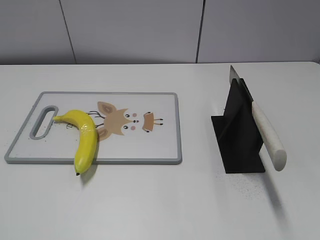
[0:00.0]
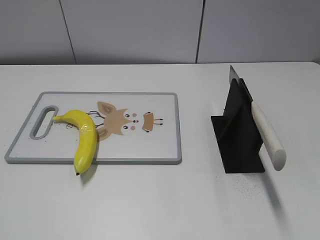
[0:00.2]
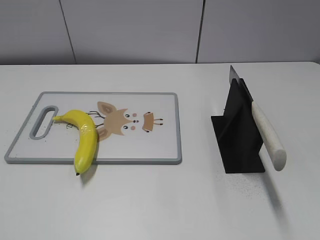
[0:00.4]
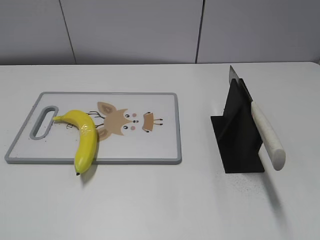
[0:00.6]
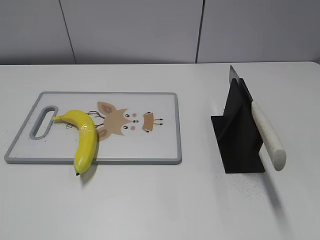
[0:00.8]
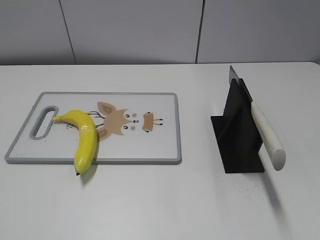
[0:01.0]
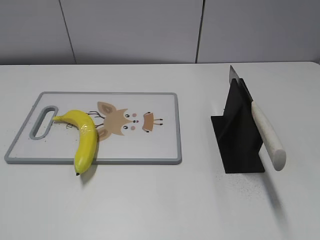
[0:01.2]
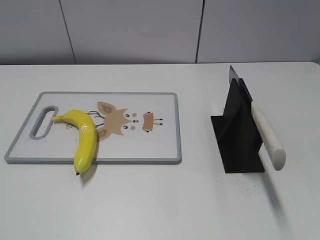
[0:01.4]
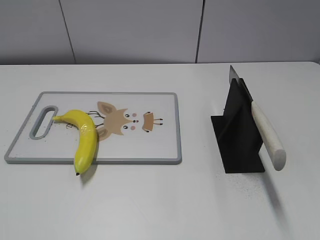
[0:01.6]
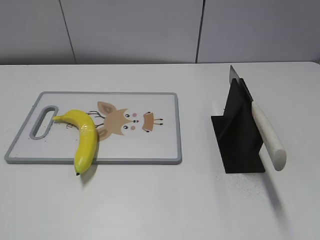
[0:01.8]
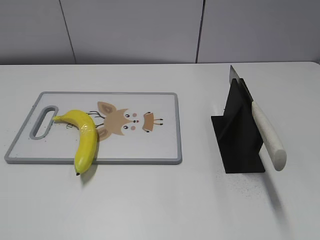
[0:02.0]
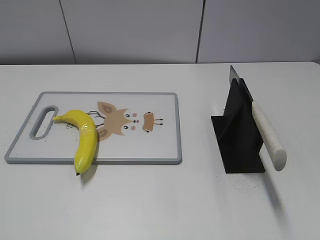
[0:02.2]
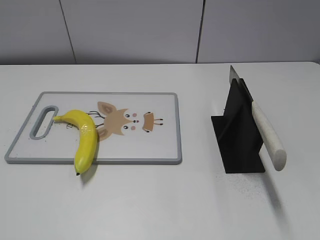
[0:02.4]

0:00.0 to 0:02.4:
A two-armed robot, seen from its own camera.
Task of the whole recording: cut plastic banana.
0:01.2 to 0:02.4: Both grippers stay about where they are.
